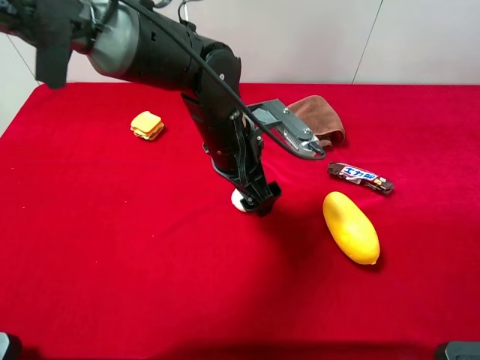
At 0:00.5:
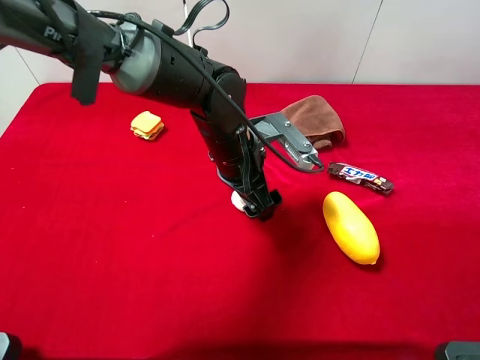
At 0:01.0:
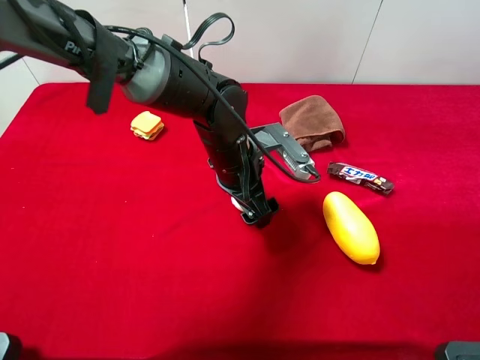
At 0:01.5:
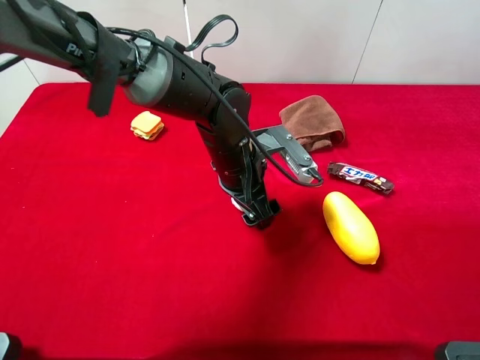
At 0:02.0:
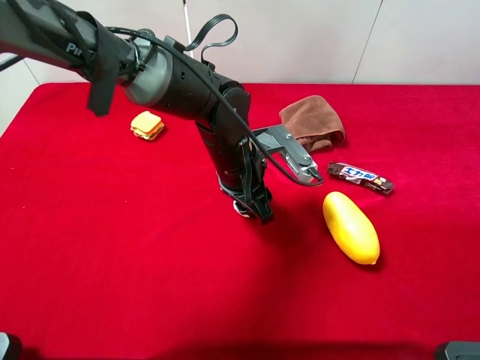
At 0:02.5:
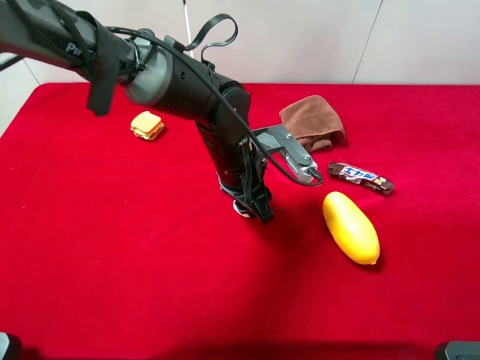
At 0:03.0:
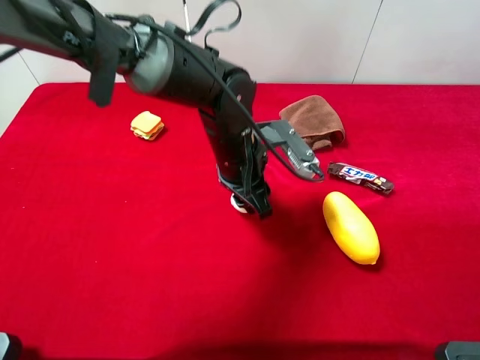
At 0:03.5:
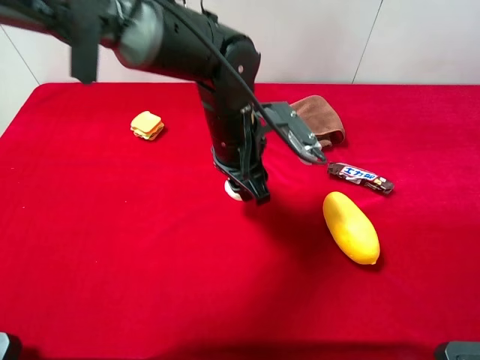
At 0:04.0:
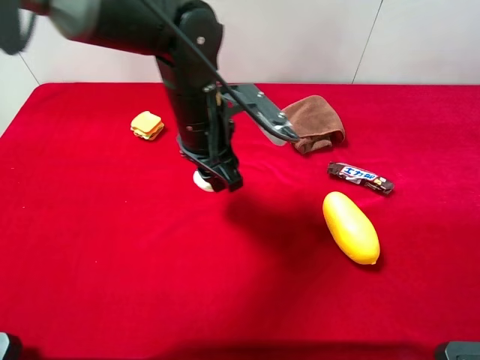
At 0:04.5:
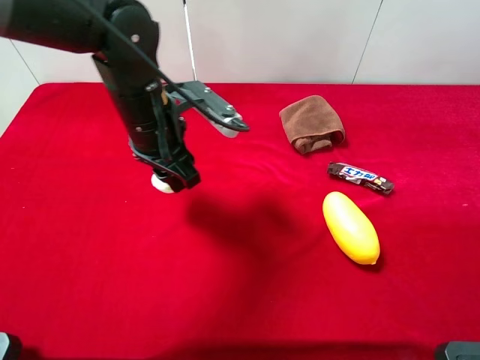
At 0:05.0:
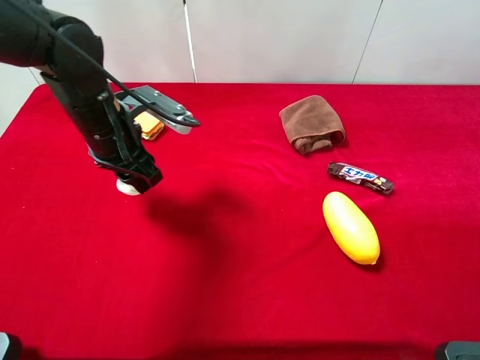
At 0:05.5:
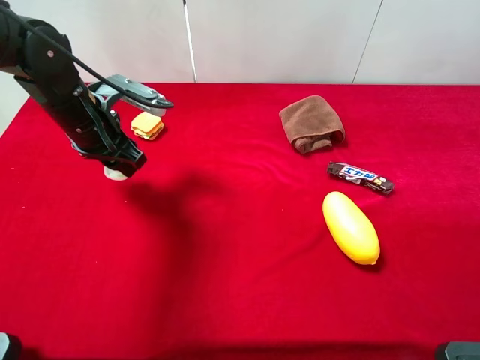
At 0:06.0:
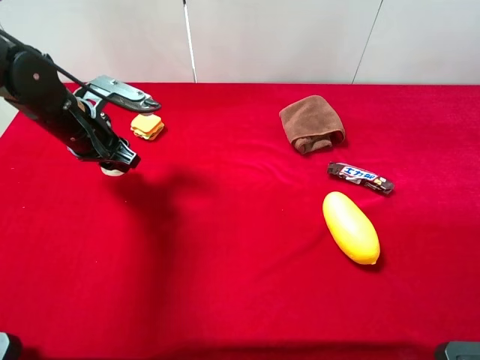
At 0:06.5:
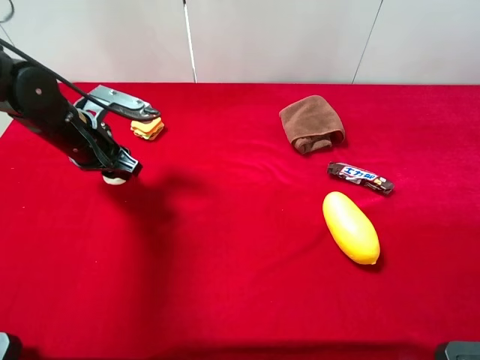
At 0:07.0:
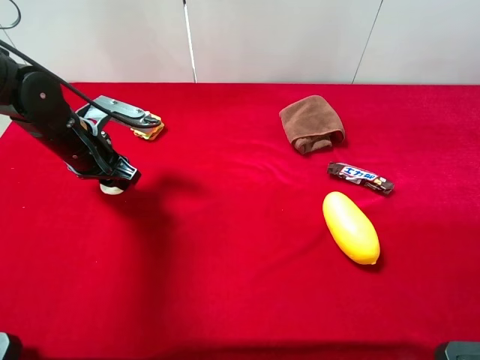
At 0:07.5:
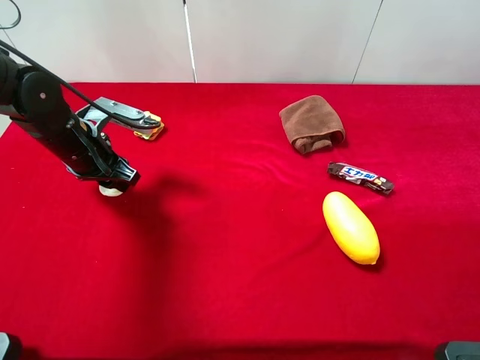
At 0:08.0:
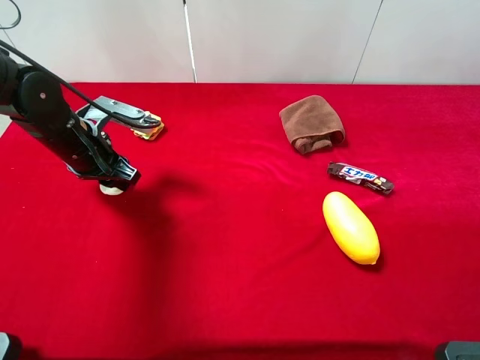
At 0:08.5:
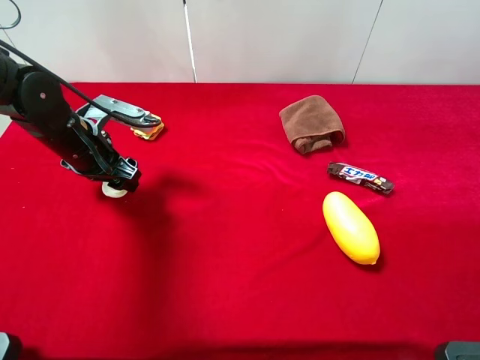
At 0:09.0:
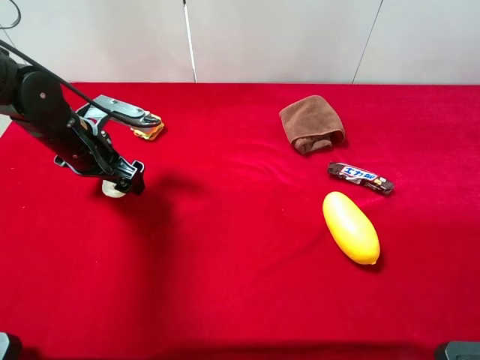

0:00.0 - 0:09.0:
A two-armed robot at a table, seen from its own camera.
Task of the whole recording: the gripper move the object.
Step, 0:00.0 - 0:02.0: Grasp the white duck with the left gripper.
0:00.0 - 0:02.0: The left gripper closes its fingers.
0:02.0 - 0:04.5: The left gripper travels to the left and upward by some 15 cm.
0:04.5 - 0:07.0: The left gripper moves to the left and downward, some 15 cm.

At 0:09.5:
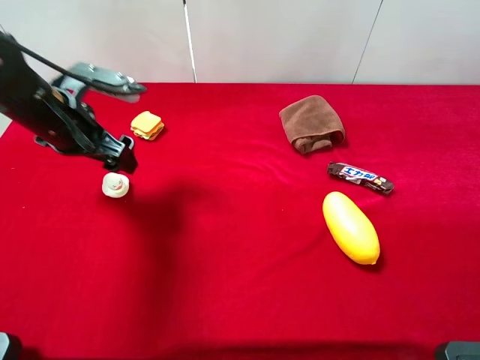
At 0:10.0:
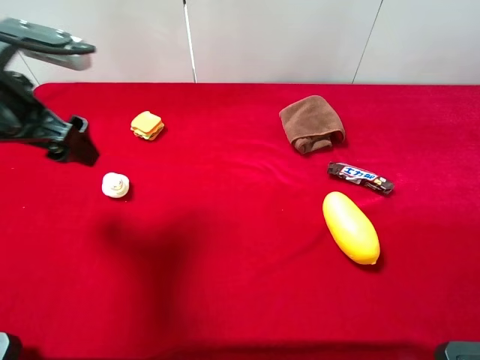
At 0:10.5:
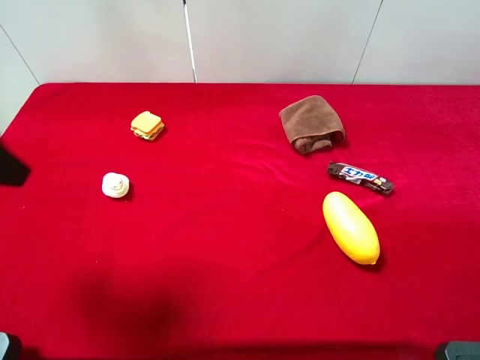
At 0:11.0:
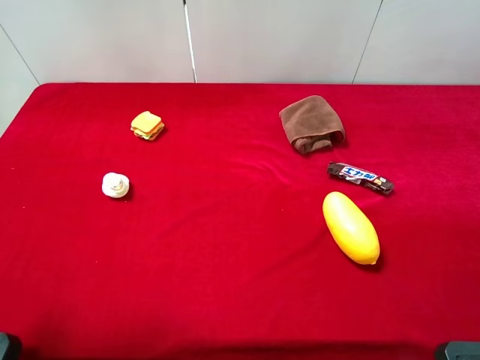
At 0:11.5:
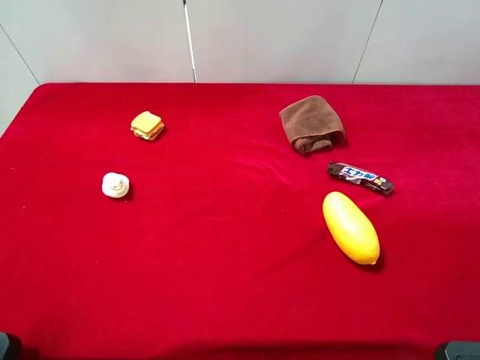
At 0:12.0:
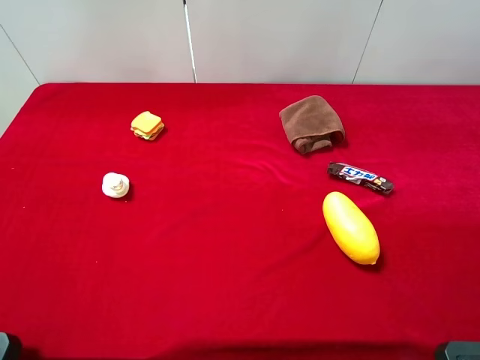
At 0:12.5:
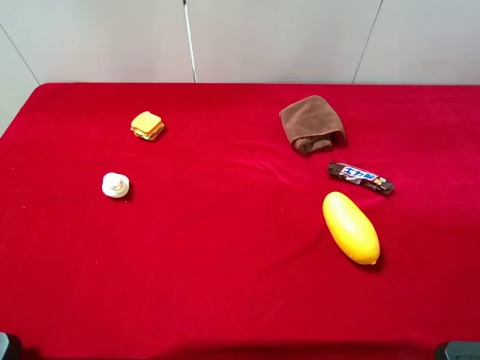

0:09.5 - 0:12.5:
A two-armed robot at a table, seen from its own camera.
Task of the whole recording: the gripper move the object.
0:09.5 - 0:11.0: The left gripper travels backward and upward by roughly 20 cm.
